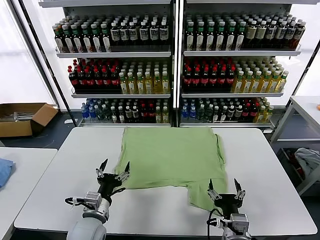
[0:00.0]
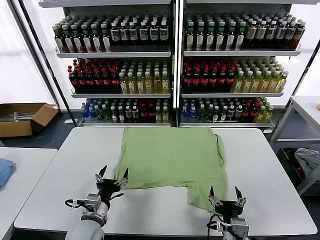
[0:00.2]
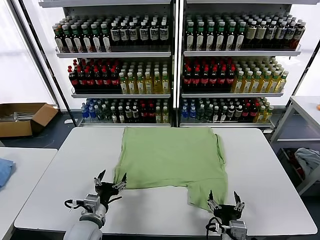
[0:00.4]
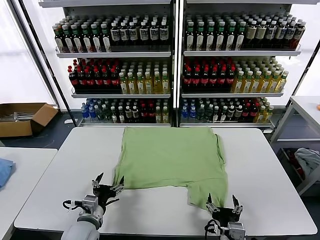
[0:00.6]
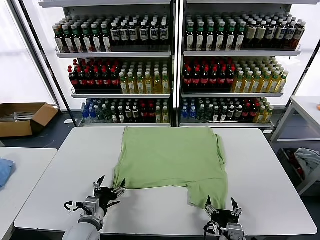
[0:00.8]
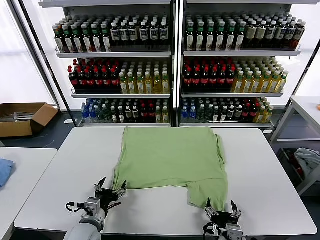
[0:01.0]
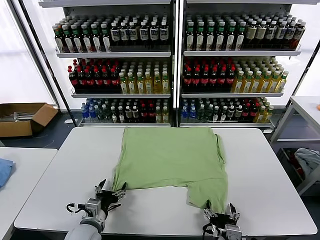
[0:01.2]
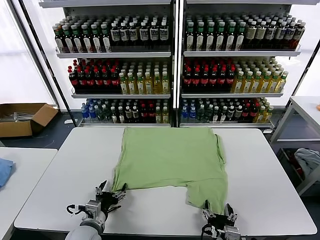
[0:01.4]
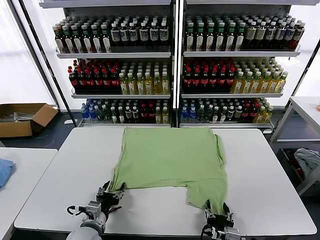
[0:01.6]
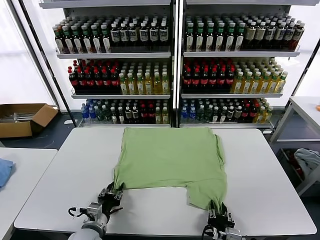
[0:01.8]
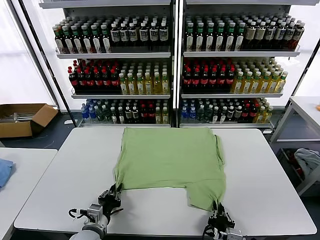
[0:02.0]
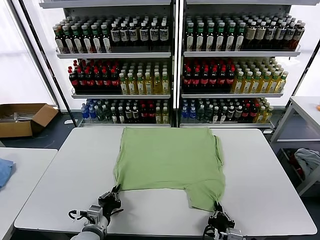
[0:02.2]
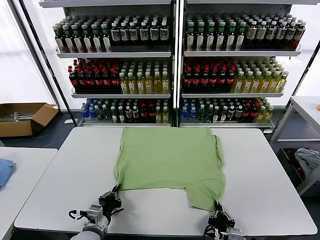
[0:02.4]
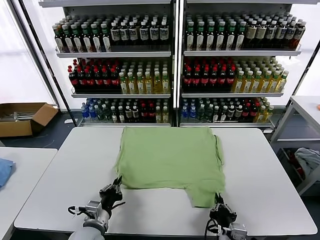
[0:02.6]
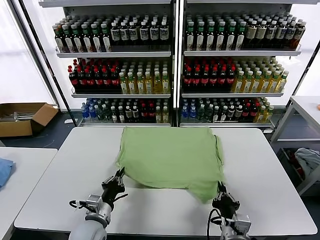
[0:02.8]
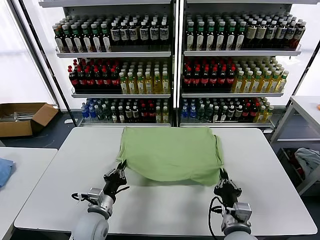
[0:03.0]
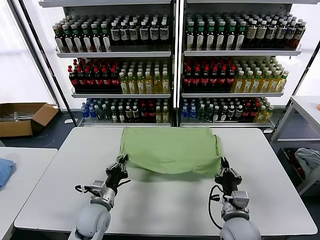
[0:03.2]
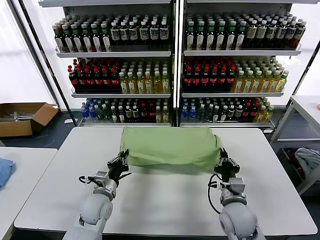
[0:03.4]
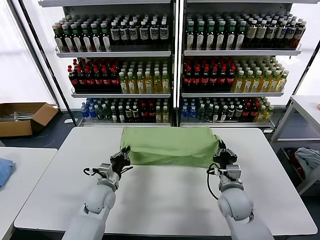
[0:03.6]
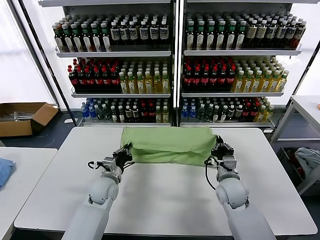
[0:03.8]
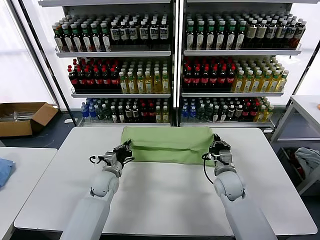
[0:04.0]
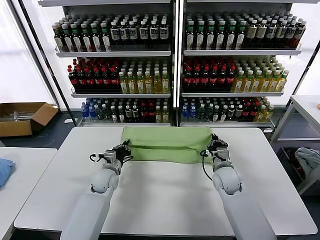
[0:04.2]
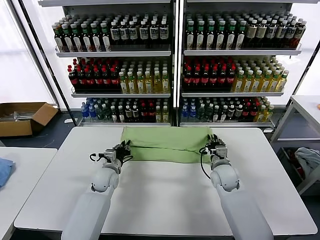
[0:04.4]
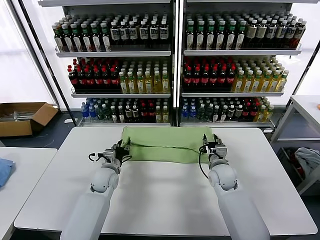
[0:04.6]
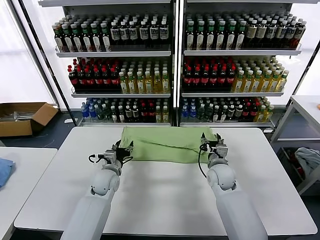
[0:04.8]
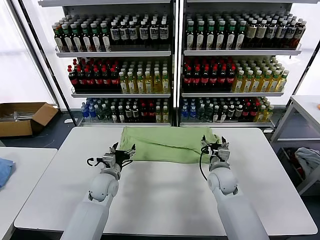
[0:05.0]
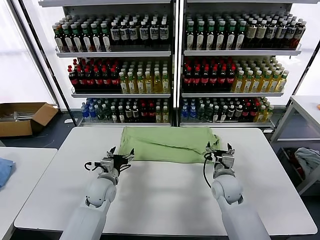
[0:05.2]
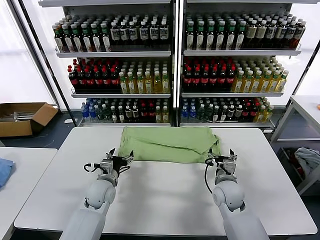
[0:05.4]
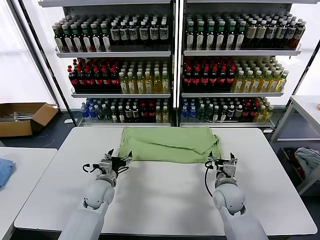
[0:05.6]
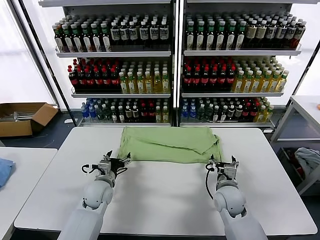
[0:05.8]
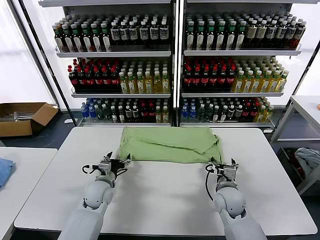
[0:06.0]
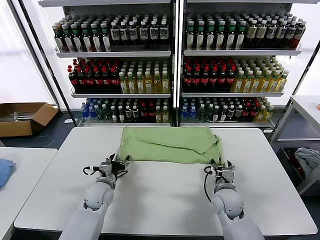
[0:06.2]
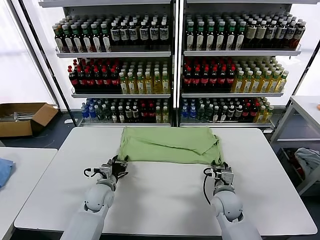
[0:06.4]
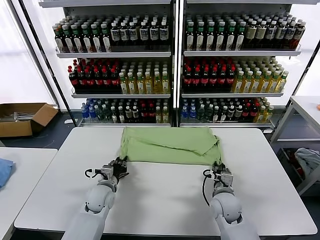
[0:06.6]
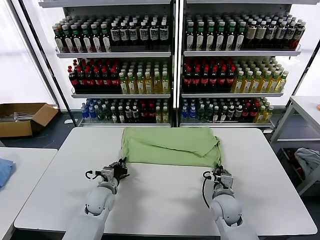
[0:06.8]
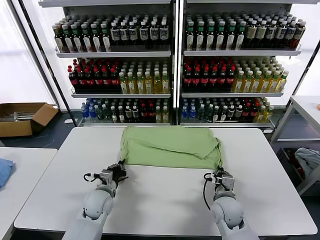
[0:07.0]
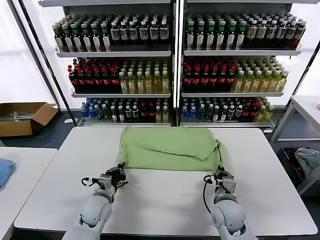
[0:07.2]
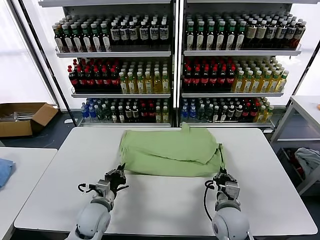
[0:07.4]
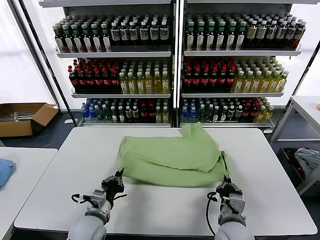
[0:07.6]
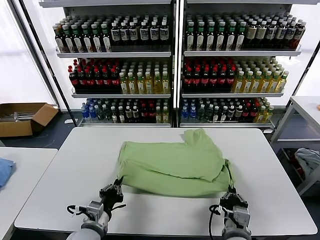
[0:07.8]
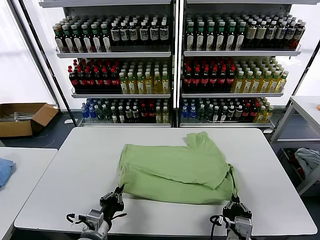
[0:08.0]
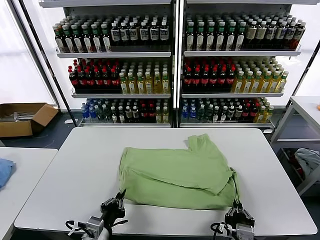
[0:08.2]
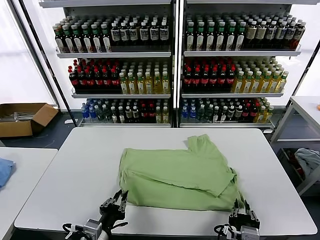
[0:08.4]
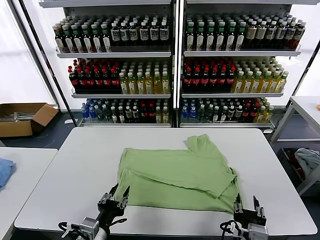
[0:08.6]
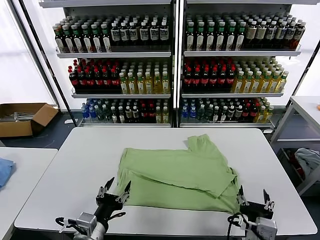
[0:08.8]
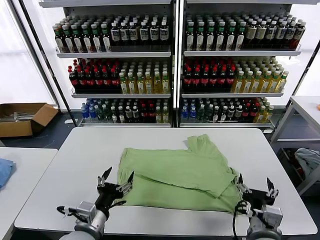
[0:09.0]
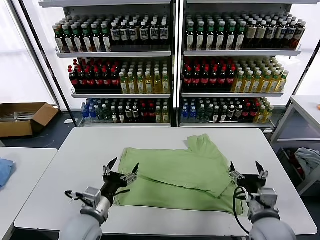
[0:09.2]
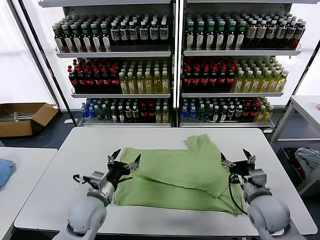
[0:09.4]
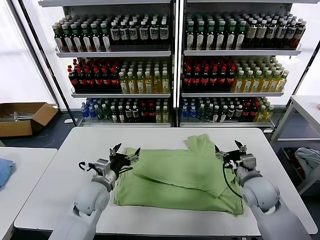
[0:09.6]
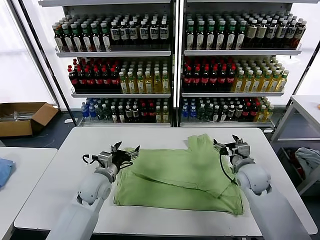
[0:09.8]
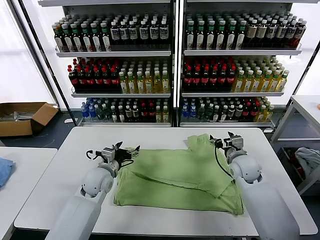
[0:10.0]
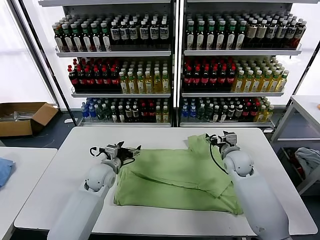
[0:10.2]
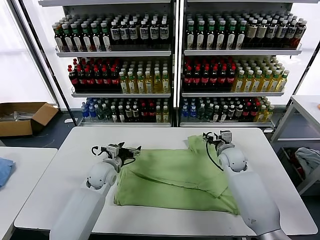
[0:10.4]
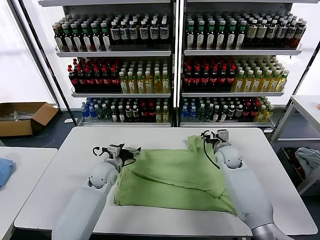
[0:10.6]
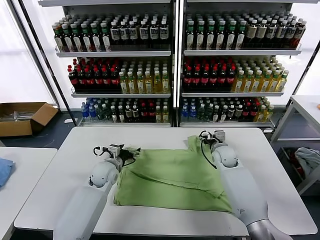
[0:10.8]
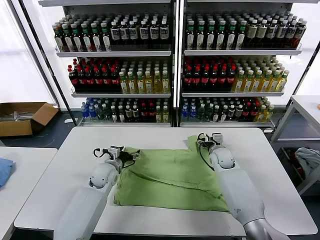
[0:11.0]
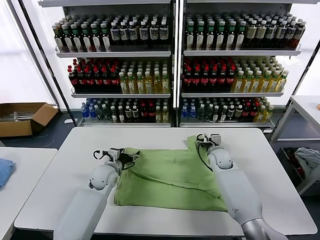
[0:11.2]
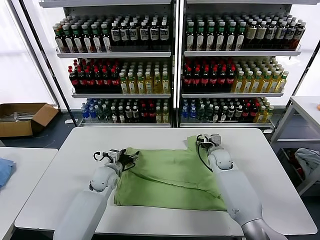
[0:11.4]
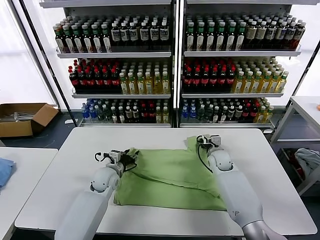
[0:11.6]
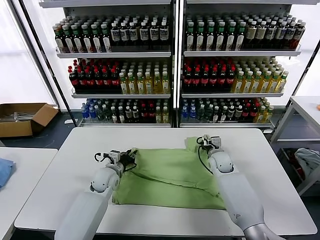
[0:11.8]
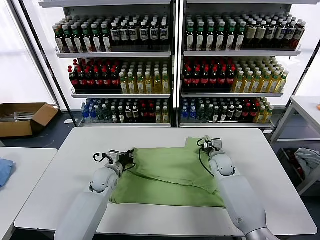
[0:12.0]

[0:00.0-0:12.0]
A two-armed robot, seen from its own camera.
Task of the whole recording: fold and organize the clothes.
Step, 0:00.0 to 0:02.2: use both grippers simultaneously to clamp the lower edge of the clothing fabric.
Step, 0:02.4 to 0:04.8: use both grippers to drag the lower edge of the fabric forward and fold it over the upper edge.
Step, 0:05.0 to 0:08.6: Drag the clothes downward with both gripper.
Step, 0:08.8 to 0:12.0: use both grippers simultaneously to clamp the upper edge of the clothing fabric.
0:01.6 to 0:03.0: The left gripper closes; the right gripper goes about 10 cm forward and upward, and closes.
0:03.0 to 0:04.4: Both grippers move forward, about 20 cm. The right gripper opens.
0:04.4 to 0:06.0: Both grippers travel together backward, roughly 5 cm. The right gripper opens. Meanwhile the left gripper opens its fingers.
0:06.0 to 0:07.6: Both grippers travel together backward, about 15 cm. The right gripper closes; the left gripper closes its fingers.
0:07.6 to 0:09.0: The left gripper travels upward and backward by approximately 10 cm, and opens its fingers, while the right gripper travels to the right by some 5 cm, and opens its fingers.
0:09.0 to 0:10.4: The two grippers go approximately 25 cm forward.
0:10.4 to 0:12.0: The left gripper closes up, while the right gripper goes about 5 cm downward, and closes up.

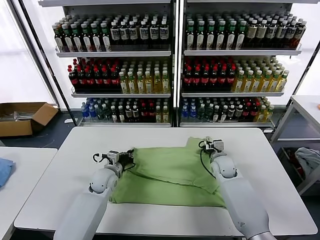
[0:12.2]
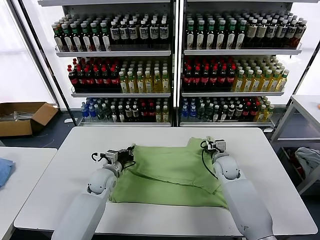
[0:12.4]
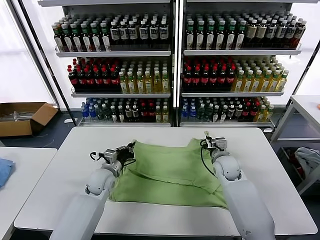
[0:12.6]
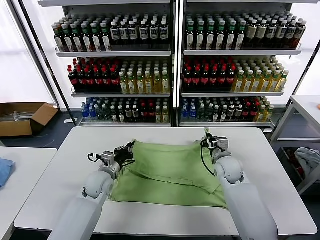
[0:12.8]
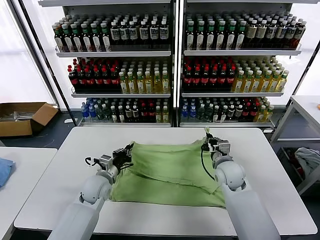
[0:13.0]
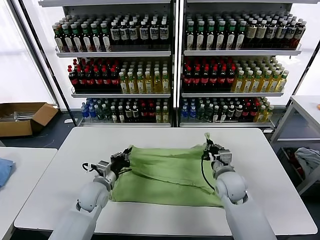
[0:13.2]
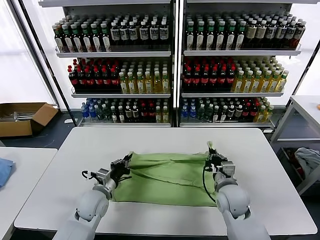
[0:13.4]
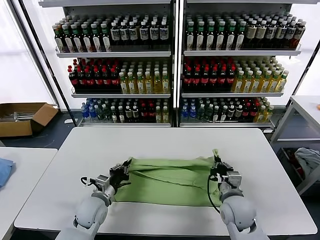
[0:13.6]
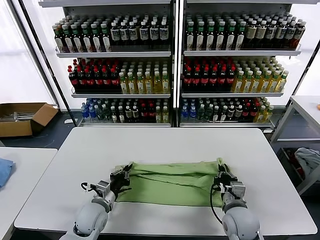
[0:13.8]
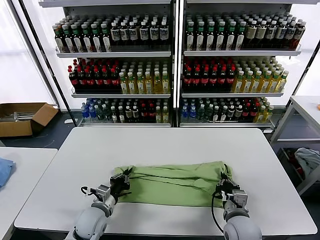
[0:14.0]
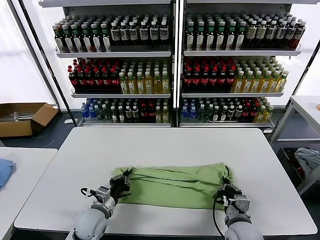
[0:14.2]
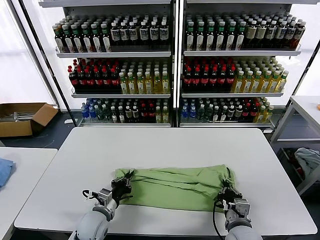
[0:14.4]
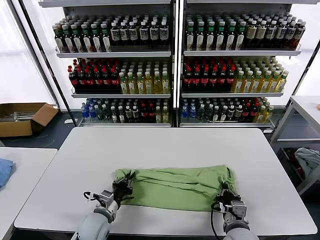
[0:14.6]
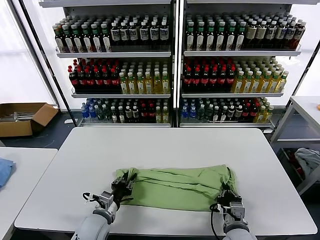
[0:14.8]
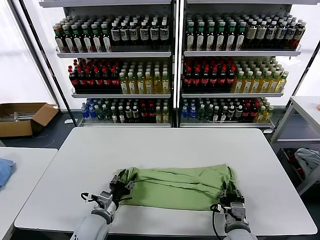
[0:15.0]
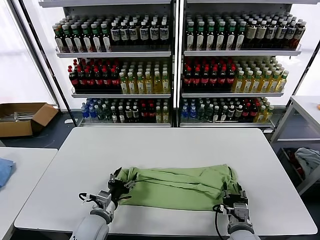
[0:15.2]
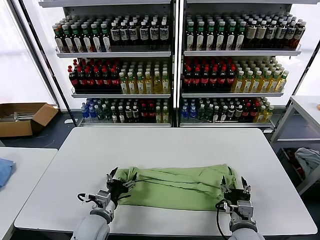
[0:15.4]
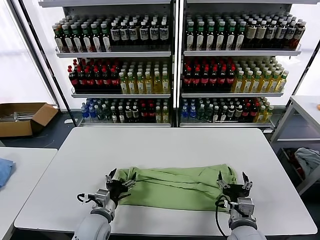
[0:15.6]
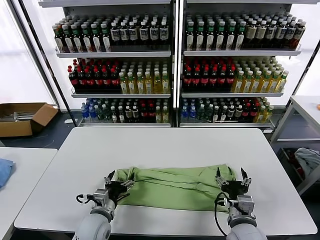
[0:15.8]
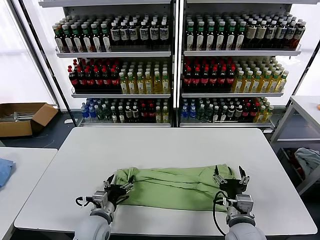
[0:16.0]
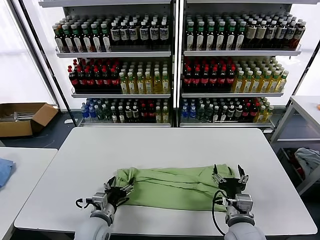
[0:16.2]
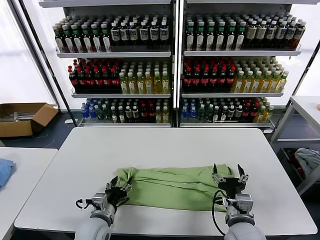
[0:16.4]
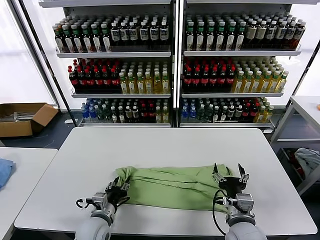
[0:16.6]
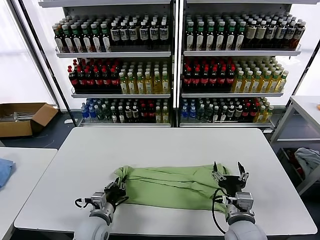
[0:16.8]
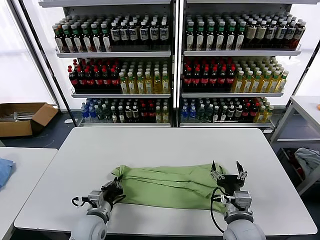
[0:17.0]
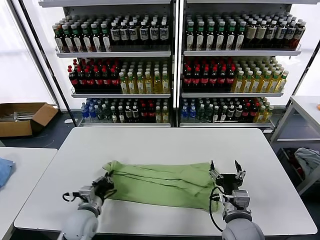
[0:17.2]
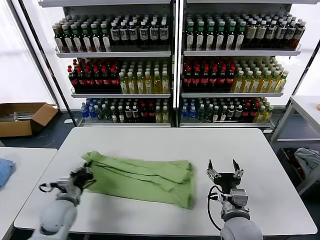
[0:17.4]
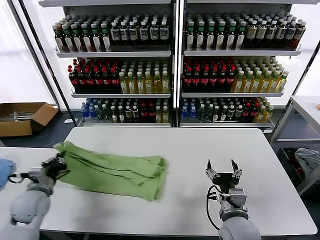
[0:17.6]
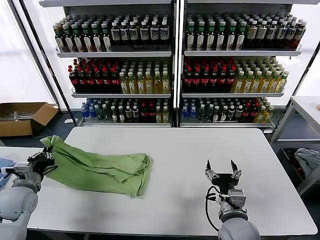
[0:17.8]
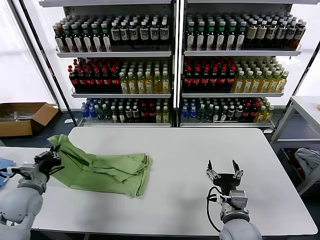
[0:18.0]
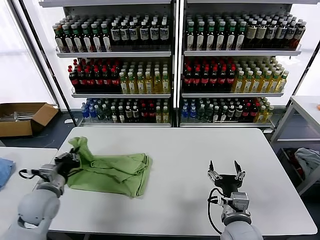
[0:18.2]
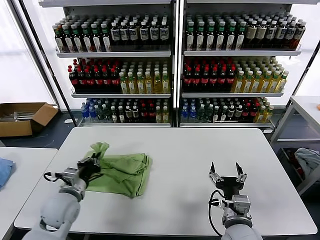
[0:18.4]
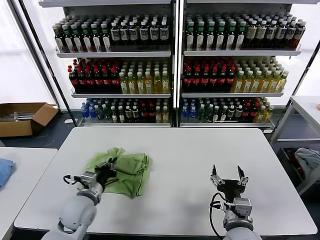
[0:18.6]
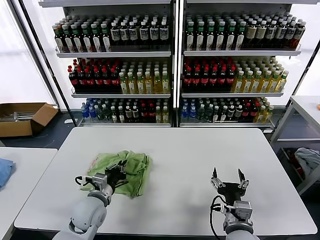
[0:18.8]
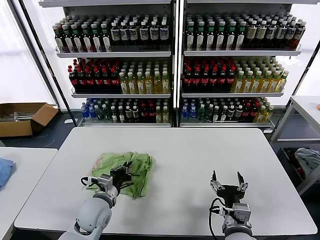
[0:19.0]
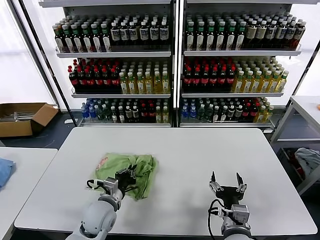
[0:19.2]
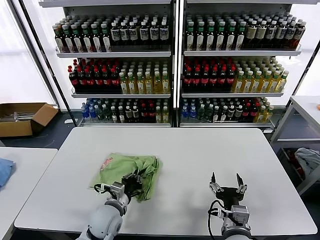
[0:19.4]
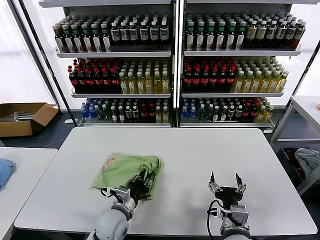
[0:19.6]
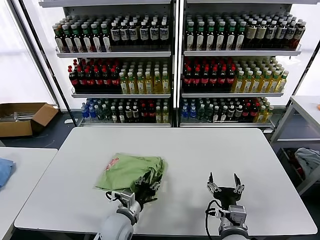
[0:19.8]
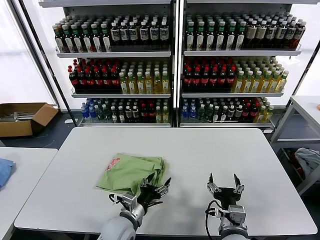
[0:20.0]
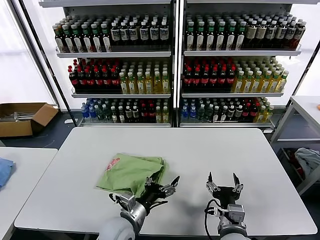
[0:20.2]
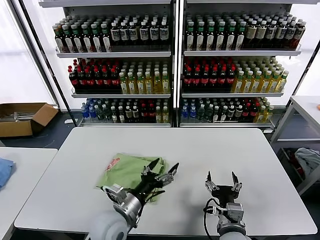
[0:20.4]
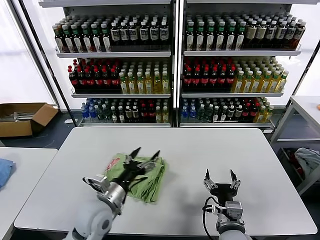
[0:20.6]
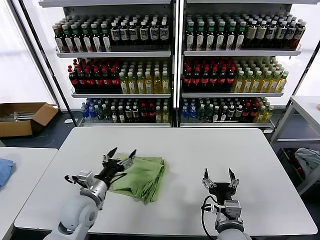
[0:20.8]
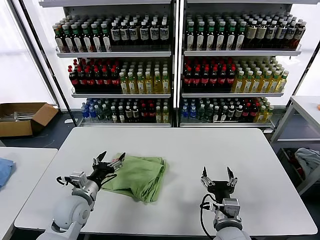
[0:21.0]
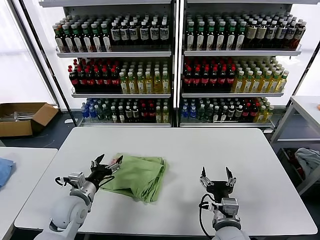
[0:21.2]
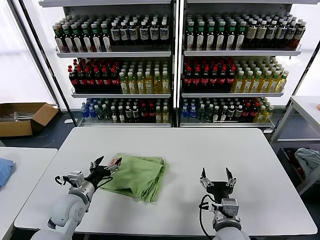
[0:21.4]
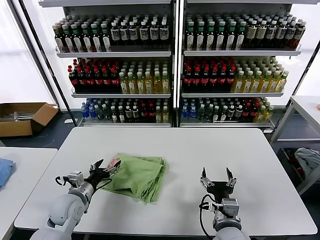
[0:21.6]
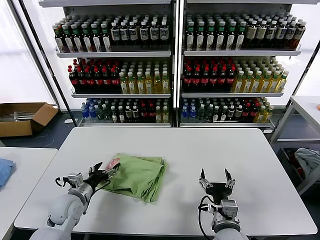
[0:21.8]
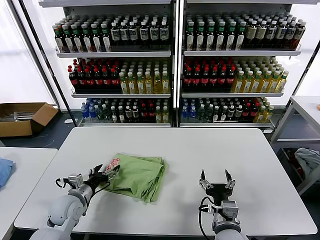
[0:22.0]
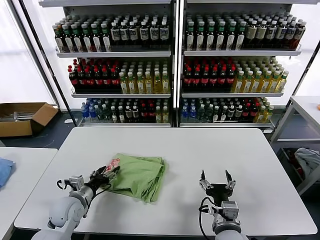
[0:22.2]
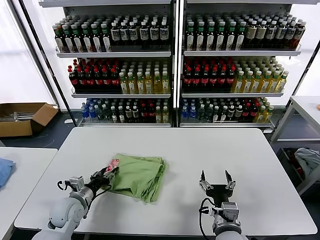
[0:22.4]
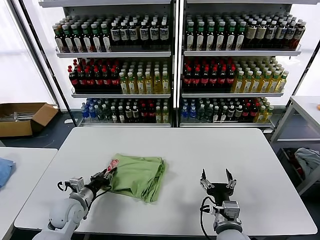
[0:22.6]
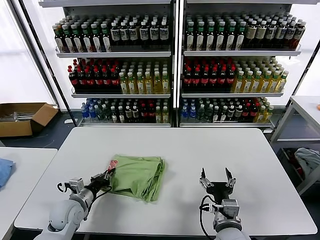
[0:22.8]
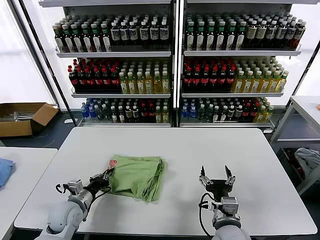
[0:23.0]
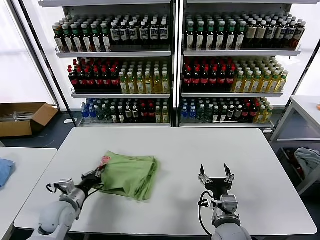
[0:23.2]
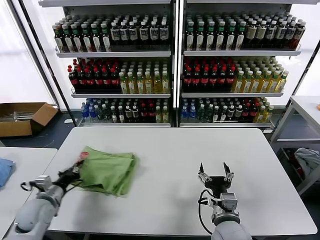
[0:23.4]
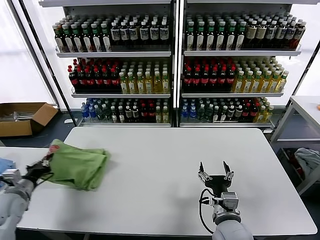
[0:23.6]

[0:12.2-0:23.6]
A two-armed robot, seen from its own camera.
Task of the whole recording: fold and organize the clothes.
Step, 0:12.2 to 0:15.4: use both grippers to drag the upper edge of the fabric backward and fold it over the lower edge.
Step, 0:15.6 to 0:16.8: use the left gripper to clamp the left edge of the fabric.
Step, 0:17.0 to 0:20.0: use the left gripper to drag the left edge of the fabric to the left and folds it over the right edge.
0:12.2 to 0:13.6: The right gripper goes roughly 20 cm backward. Meanwhile the left gripper goes approximately 10 cm backward.
0:13.6 to 0:15.0: The grippers both shift backward by approximately 5 cm. The right gripper opens. Meanwhile the left gripper opens.
0:15.0 to 0:16.4: The right gripper heads upward, covering approximately 5 cm, and opens its fingers.
0:16.4 to 0:17.8: The left gripper travels to the left and upward by approximately 25 cm, and closes up.
0:17.8 to 0:19.4: The left gripper moves to the right, approximately 25 cm.
0:19.4 to 0:20.8: The left gripper shifts approximately 5 cm upward, and opens up.
0:20.8 to 0:22.2: The left gripper shifts roughly 10 cm to the left and downward.
0:22.2 to 0:23.6: The left gripper travels to the left by approximately 15 cm, and closes.
